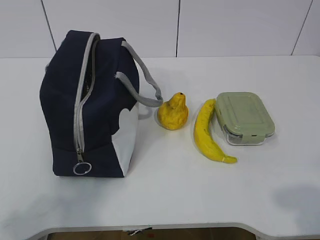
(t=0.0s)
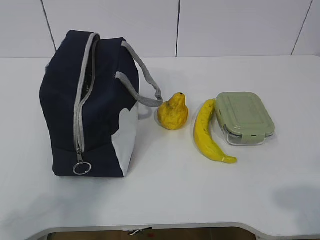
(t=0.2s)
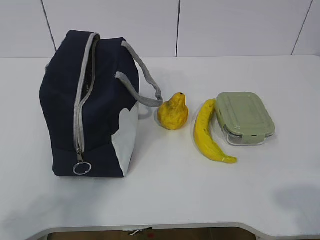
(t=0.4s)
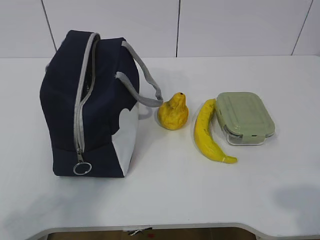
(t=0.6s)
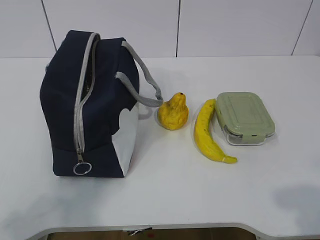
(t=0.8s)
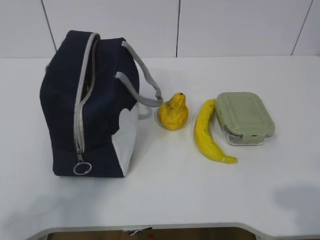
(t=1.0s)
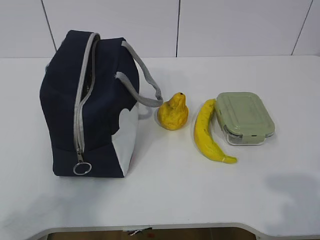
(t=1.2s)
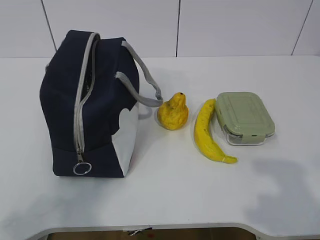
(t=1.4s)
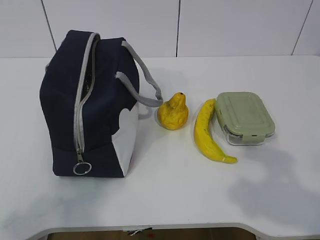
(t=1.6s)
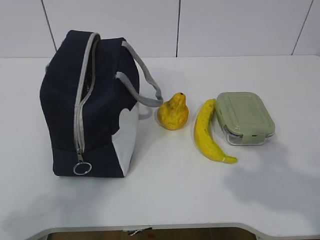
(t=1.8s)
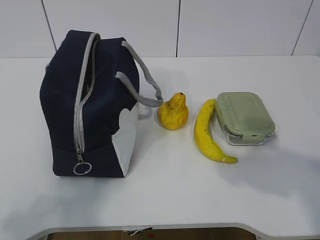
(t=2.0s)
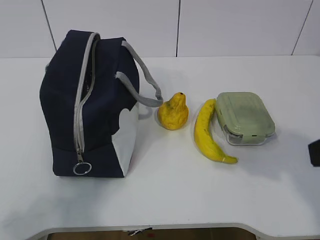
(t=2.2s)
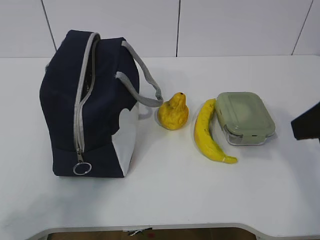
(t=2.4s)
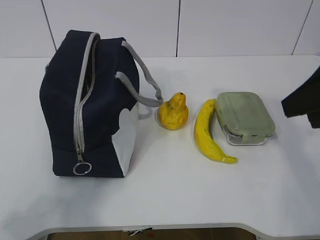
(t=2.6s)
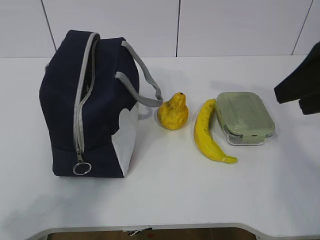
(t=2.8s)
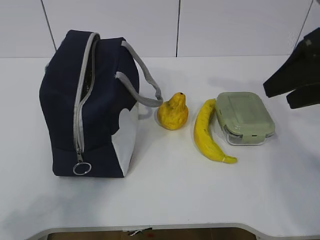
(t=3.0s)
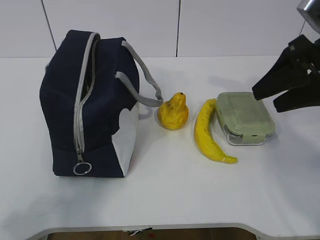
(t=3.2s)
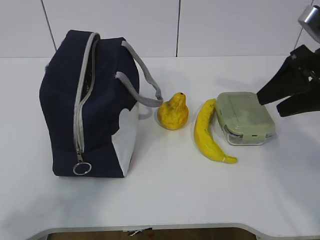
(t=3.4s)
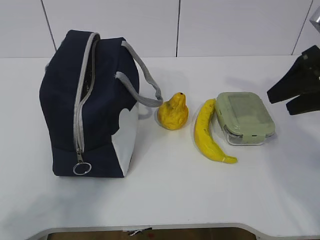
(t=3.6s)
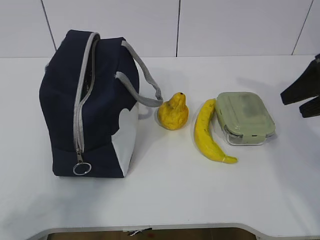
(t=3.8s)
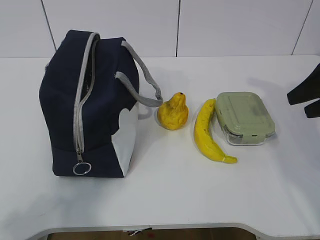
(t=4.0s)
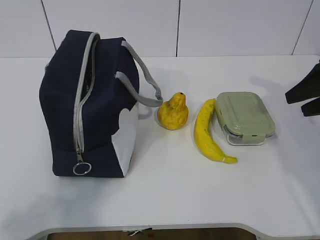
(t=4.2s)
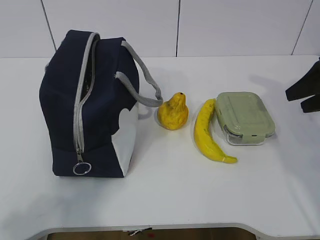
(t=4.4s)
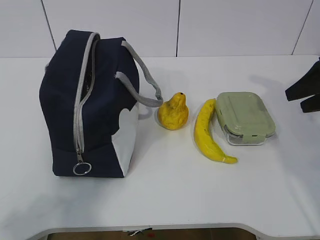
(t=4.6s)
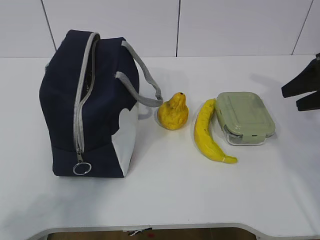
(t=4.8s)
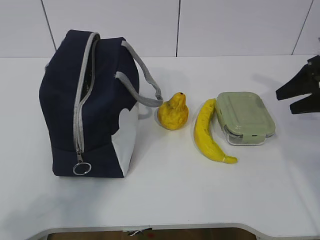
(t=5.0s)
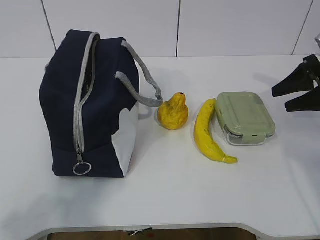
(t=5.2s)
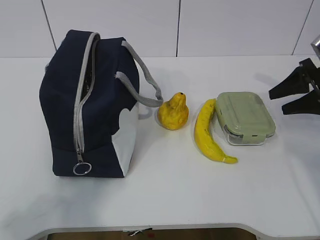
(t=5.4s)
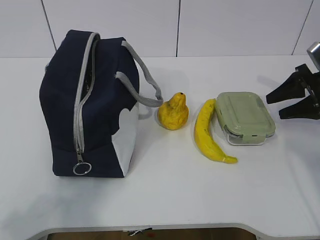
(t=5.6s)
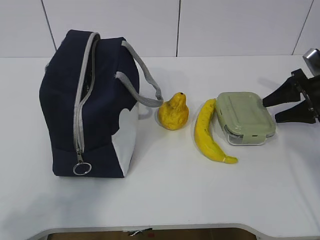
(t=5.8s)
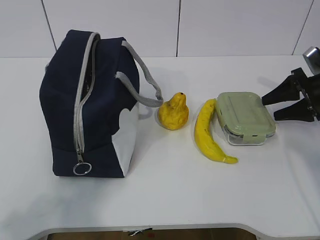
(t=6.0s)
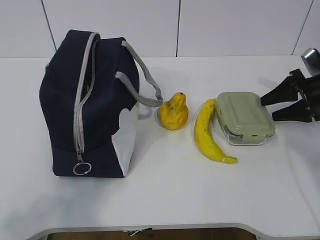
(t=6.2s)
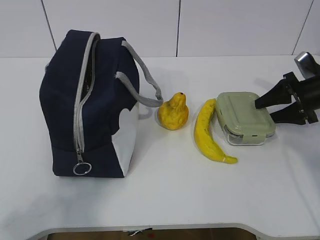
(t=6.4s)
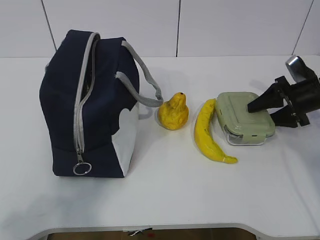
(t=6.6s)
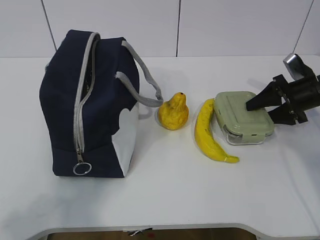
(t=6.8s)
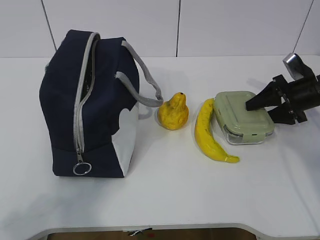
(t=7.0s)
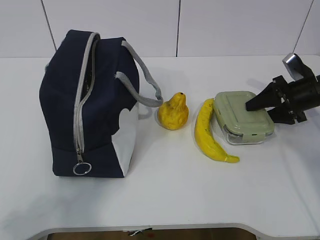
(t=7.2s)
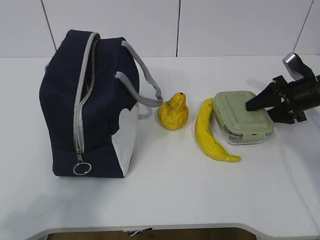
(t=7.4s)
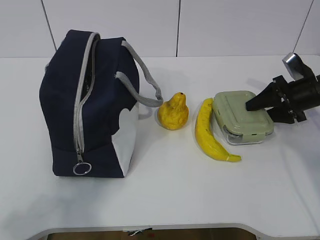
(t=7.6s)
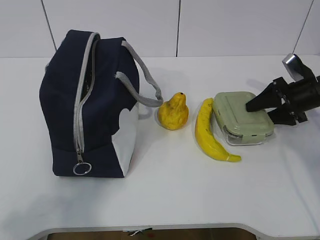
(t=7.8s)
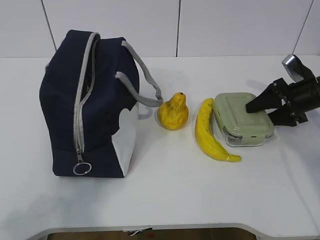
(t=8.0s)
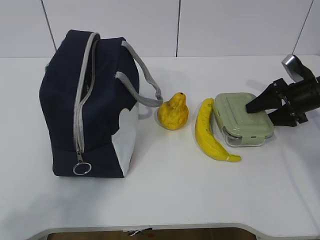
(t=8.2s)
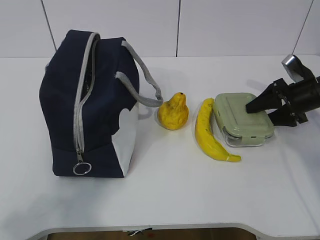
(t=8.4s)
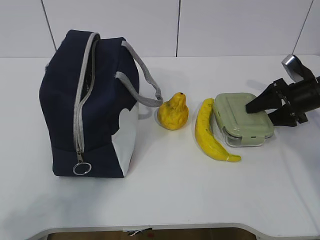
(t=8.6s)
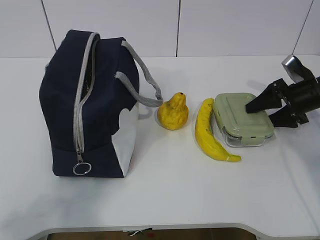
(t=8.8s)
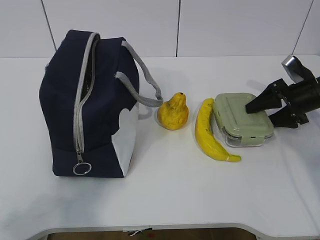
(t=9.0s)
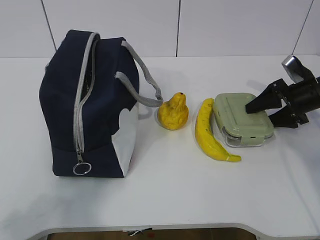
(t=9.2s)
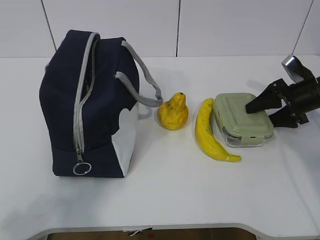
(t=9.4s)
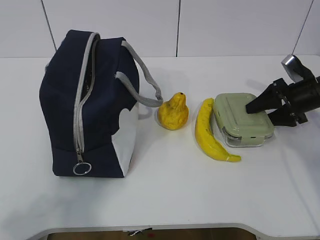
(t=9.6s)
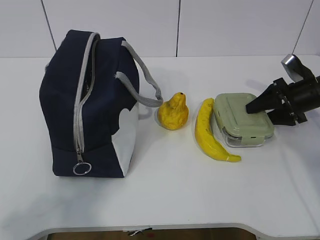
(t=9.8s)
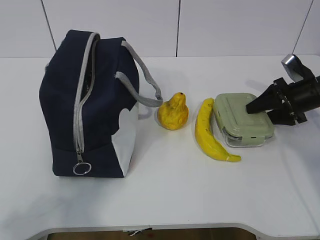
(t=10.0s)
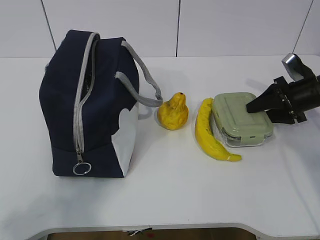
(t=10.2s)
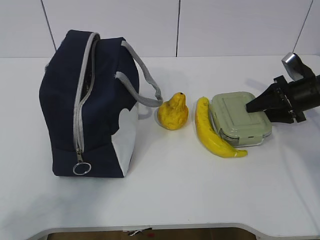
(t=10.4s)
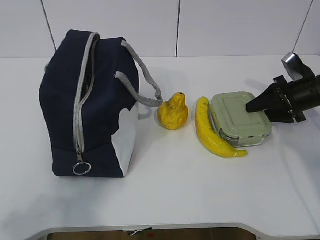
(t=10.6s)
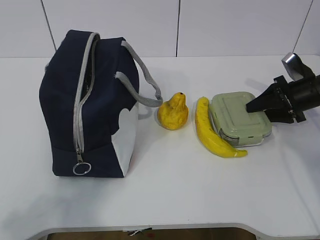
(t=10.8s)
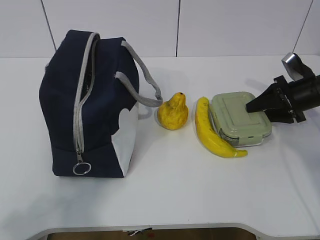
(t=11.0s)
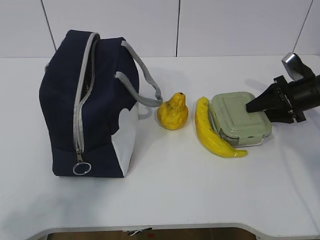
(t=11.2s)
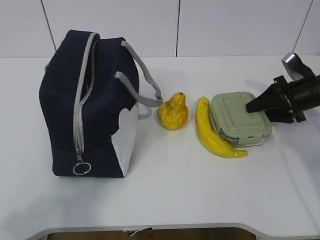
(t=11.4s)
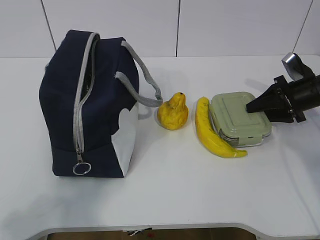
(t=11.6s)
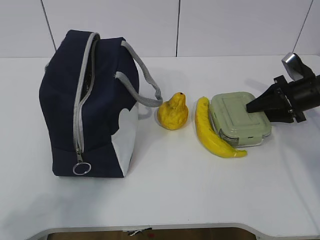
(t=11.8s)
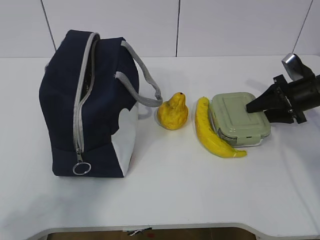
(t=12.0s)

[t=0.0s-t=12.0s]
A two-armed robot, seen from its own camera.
Step, t=0.0s to t=10.0s: Grab the lunch box with your right hand.
t=1.6s to t=3.0s: The right gripper travels forward by approximately 20 cm.
t=3.0s to t=4.4s: The right gripper travels to the right, downward and forward by roughly 15 cm.
t=4.4s to t=6.0s: The right gripper is displaced downward and forward by about 10 cm.
t=6.0s to t=7.6s: There are only small adjustments of the grippers.
t=7.6s to t=12.0s: Both grippers stay about where they are.

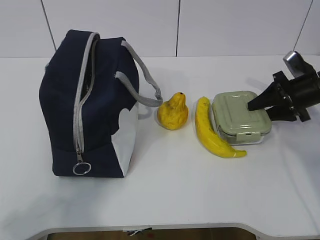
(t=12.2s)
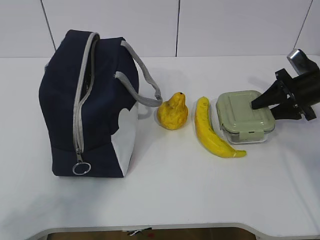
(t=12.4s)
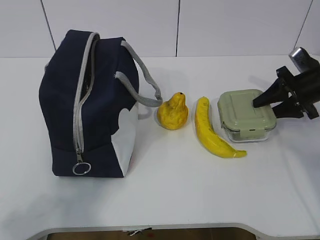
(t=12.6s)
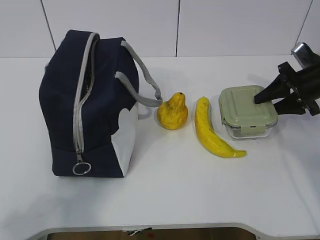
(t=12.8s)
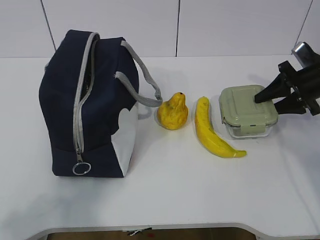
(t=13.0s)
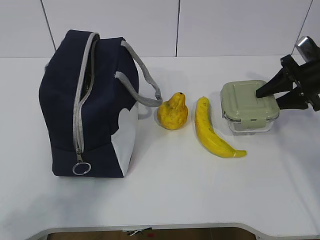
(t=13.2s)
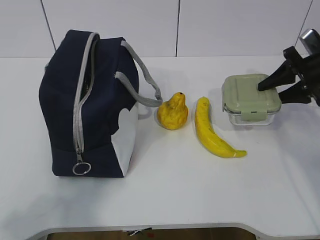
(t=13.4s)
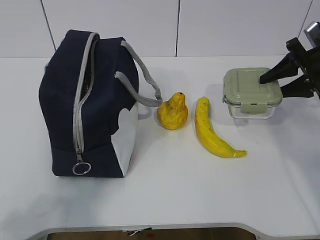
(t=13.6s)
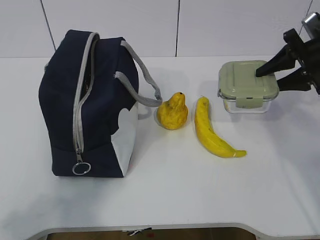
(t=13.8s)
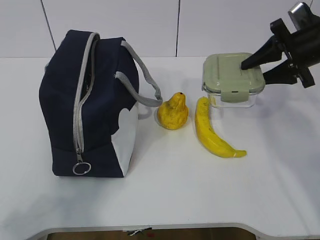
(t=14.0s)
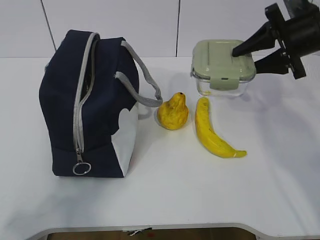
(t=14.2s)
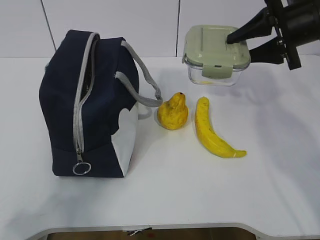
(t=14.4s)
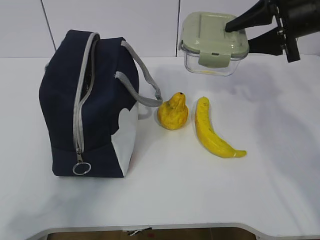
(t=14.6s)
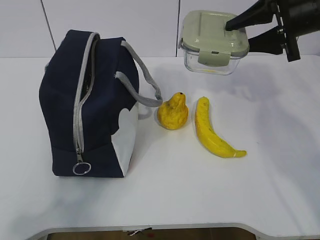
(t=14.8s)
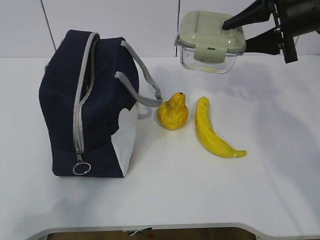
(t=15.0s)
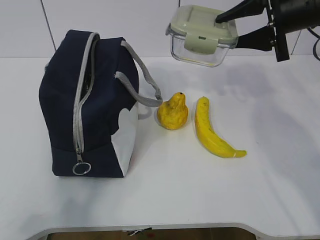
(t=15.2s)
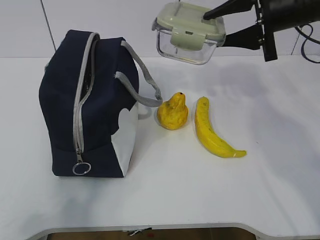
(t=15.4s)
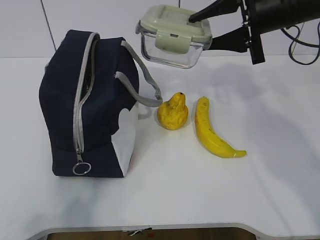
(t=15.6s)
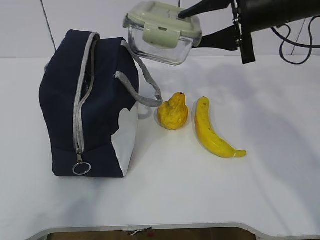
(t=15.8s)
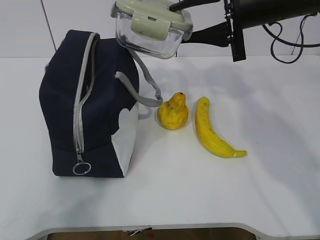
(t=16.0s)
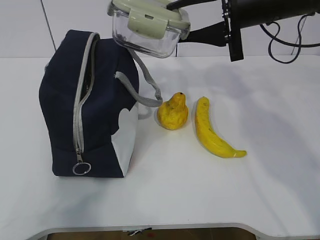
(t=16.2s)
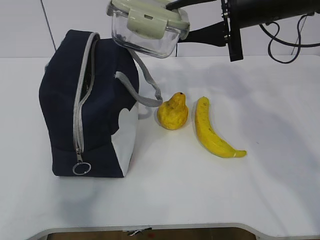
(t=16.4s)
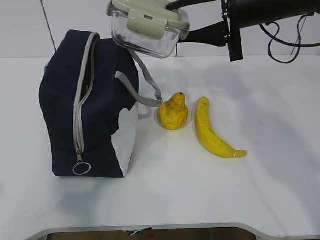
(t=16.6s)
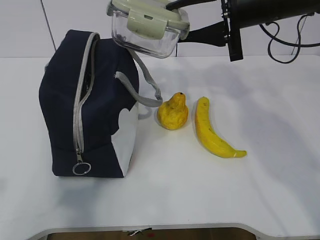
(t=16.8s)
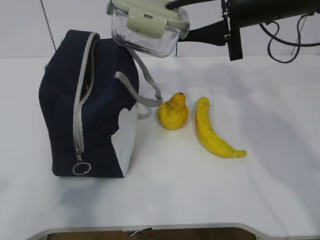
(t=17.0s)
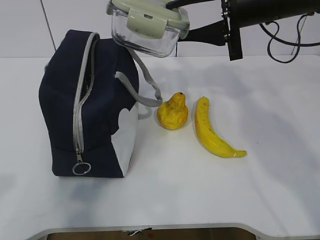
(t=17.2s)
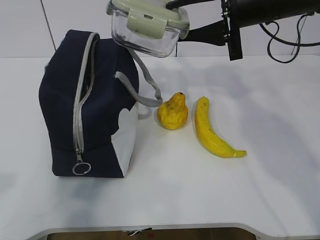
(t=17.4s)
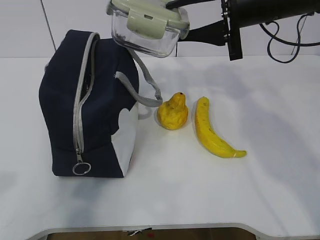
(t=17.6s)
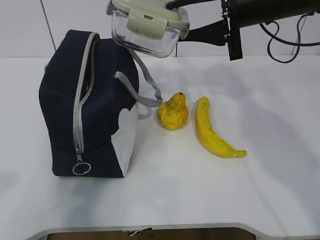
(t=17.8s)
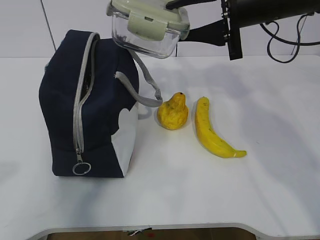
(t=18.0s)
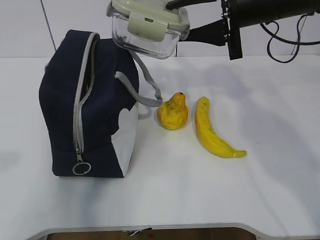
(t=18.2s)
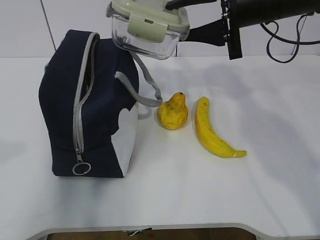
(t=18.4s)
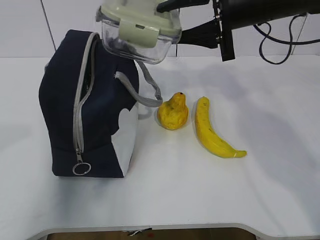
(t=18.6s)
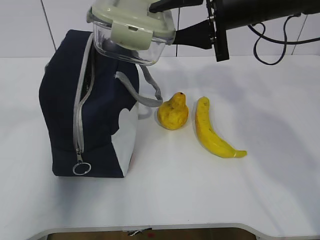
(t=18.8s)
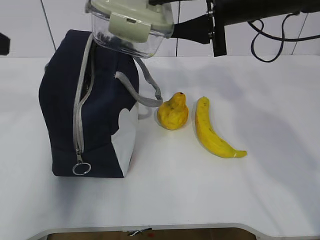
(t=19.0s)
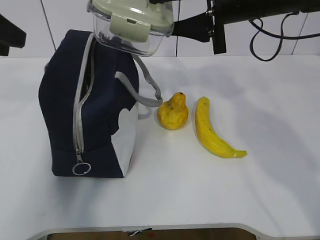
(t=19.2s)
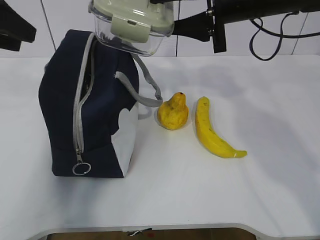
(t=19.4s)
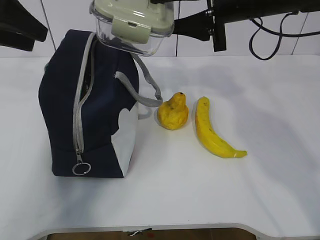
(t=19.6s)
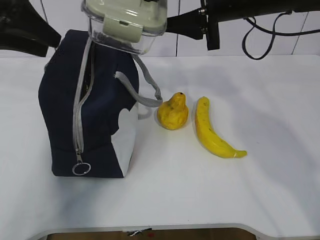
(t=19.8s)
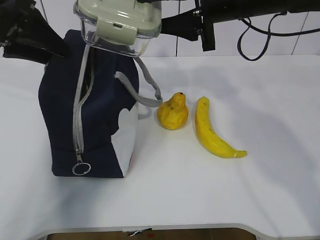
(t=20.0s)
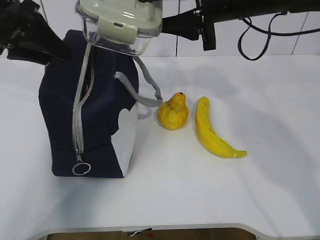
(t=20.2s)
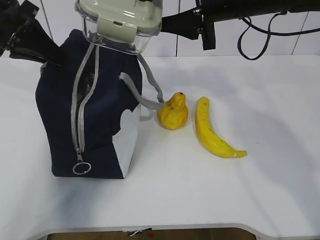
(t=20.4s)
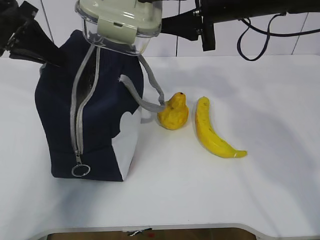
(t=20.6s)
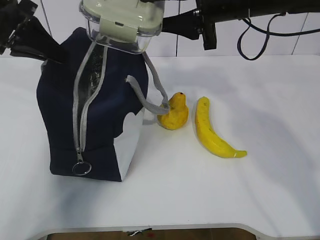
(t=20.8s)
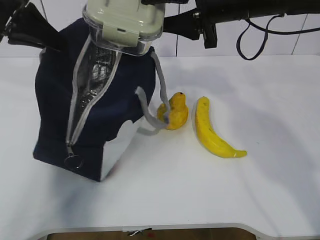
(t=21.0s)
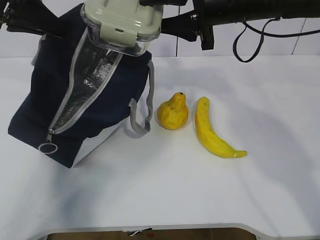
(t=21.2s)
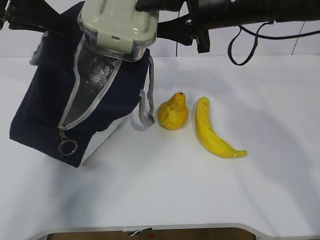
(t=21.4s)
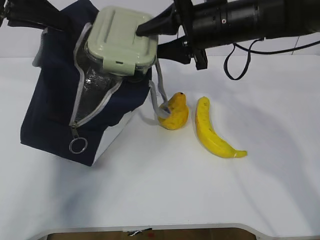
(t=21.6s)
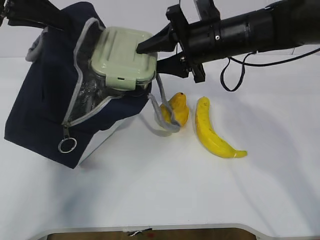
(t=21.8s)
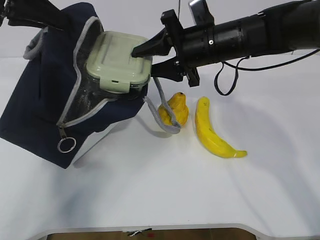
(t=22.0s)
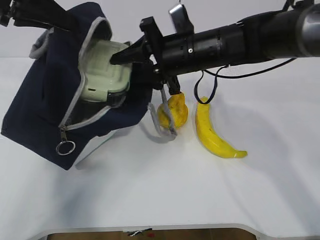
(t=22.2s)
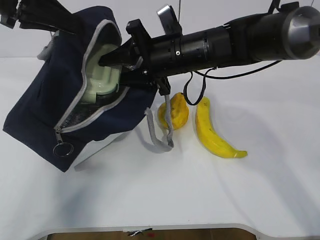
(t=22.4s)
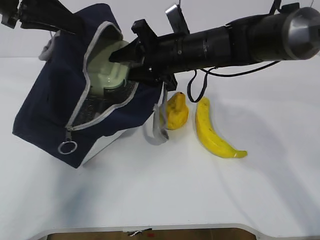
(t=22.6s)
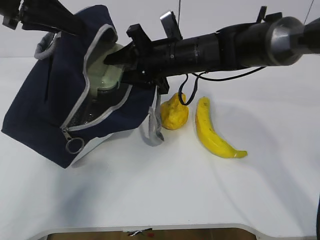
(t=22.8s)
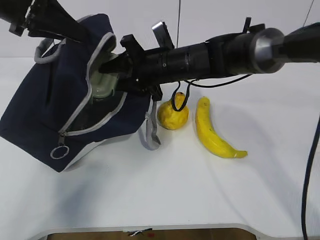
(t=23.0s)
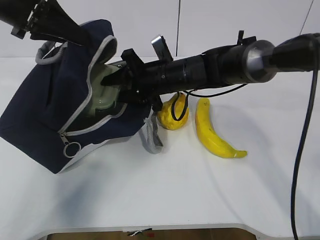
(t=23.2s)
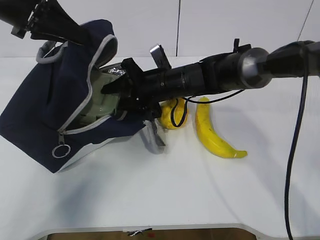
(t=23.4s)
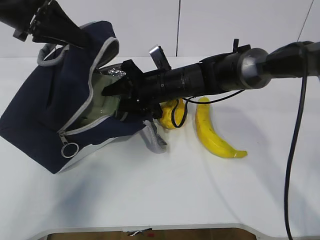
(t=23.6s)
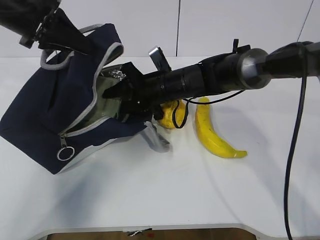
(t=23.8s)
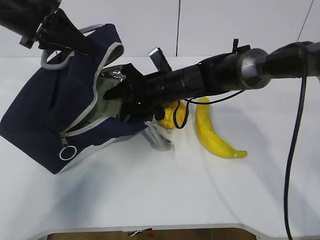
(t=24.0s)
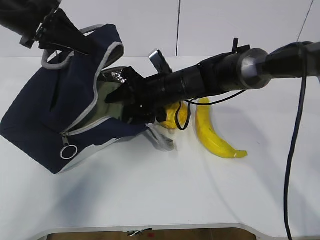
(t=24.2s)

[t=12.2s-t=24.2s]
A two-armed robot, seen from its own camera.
Step, t=12.2s to t=17.8s: Grab the lunch bag with your left hand.
Step, t=20.4s to t=24.0s: Grab the banana with your right hand.
t=12.2s to t=13.8s: The right gripper shifts about 10 cm upward.
t=13.8s to t=15.2s: The right gripper is displaced to the left and upward by approximately 10 cm.
t=15.2s to t=16.6s: The right gripper travels to the left by approximately 5 cm.
t=16.6s to t=18.2s: The left gripper moves approximately 5 cm.
t=18.2s to t=19.8s: The left gripper shifts approximately 30 cm forward.
t=19.8s to t=21.2s: The left gripper closes its fingers.
t=21.2s to t=22.6s: The right gripper moves downward and to the left, some 10 cm.
t=22.6s to t=24.2s: The right gripper is displaced downward by roughly 10 cm.
